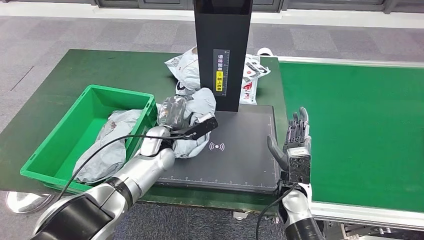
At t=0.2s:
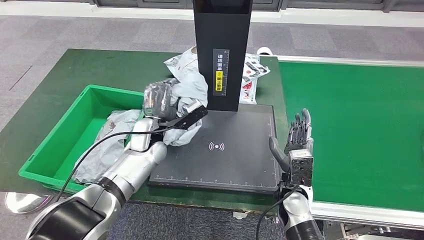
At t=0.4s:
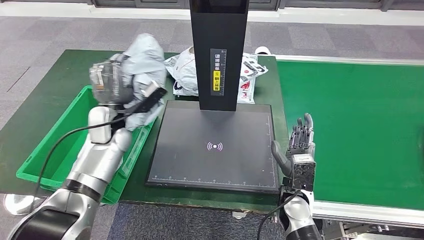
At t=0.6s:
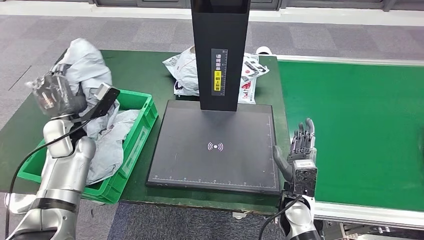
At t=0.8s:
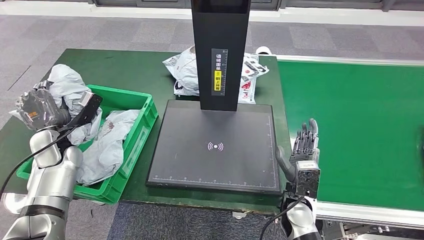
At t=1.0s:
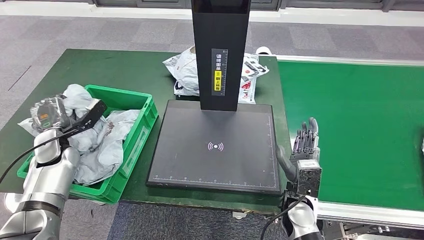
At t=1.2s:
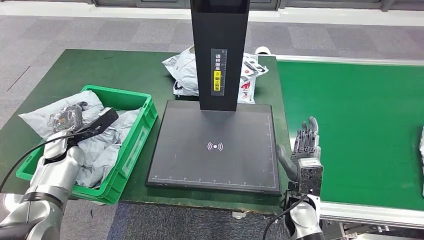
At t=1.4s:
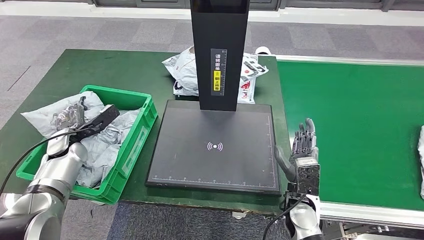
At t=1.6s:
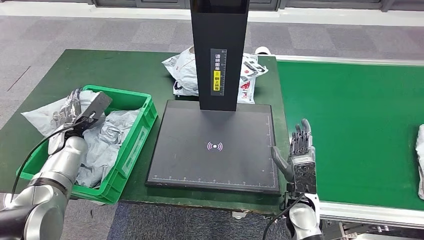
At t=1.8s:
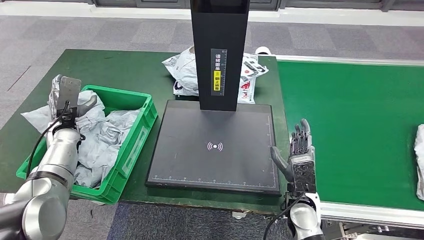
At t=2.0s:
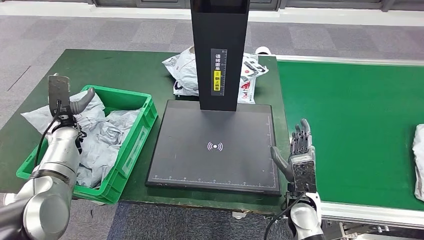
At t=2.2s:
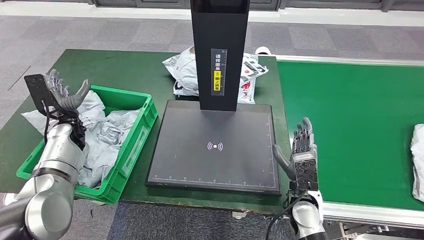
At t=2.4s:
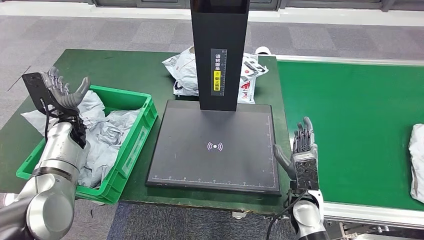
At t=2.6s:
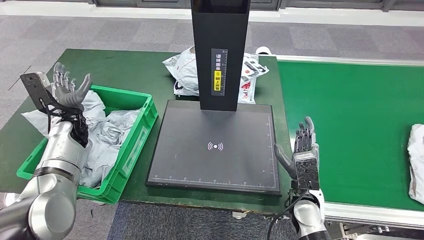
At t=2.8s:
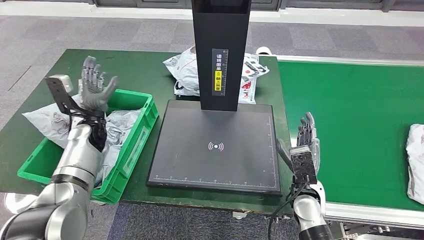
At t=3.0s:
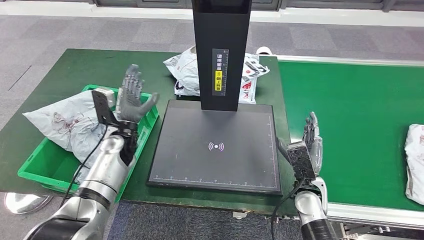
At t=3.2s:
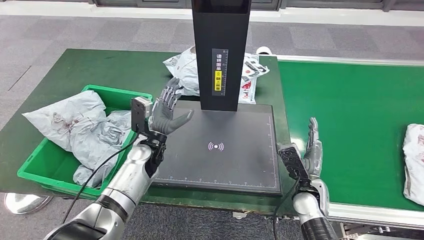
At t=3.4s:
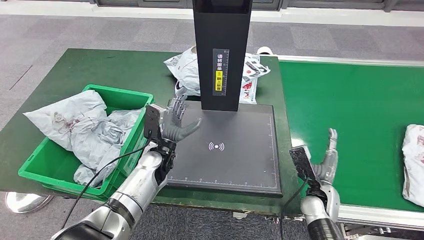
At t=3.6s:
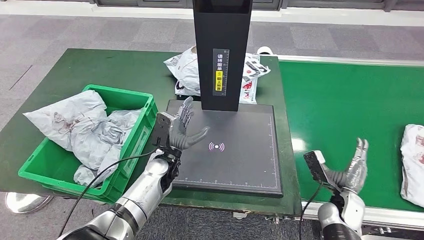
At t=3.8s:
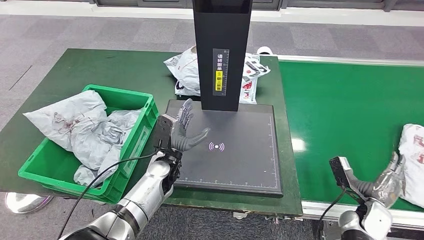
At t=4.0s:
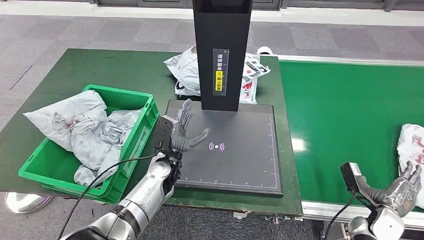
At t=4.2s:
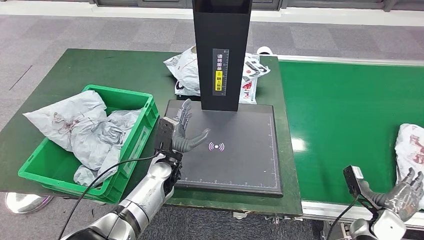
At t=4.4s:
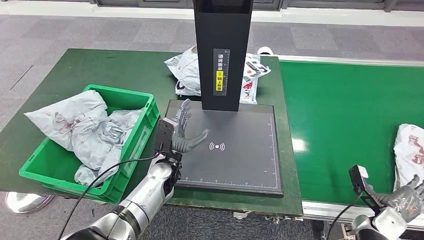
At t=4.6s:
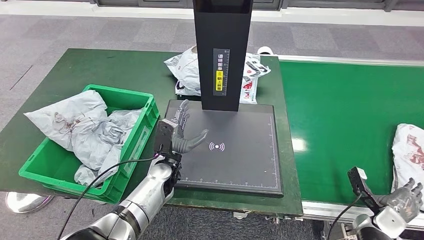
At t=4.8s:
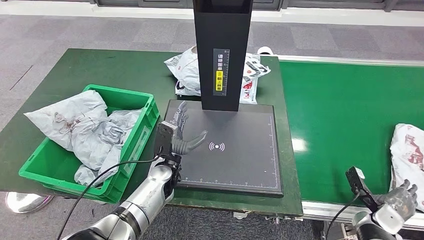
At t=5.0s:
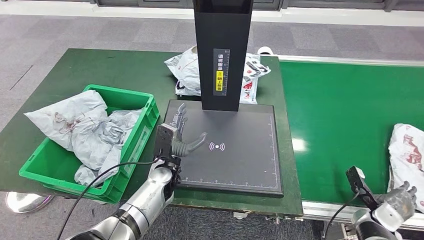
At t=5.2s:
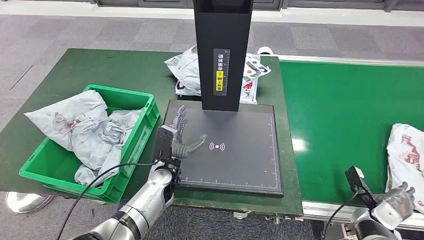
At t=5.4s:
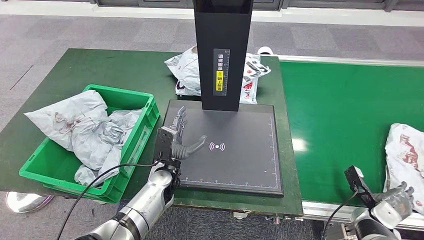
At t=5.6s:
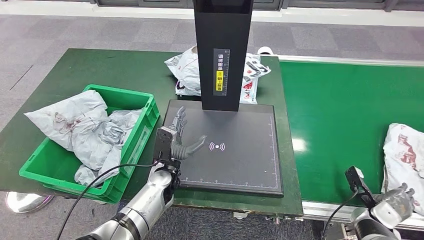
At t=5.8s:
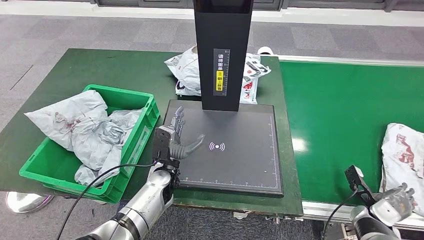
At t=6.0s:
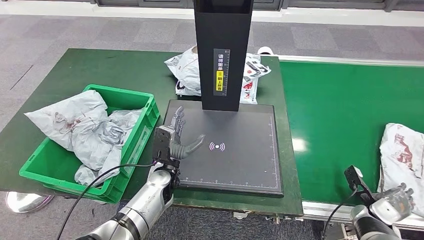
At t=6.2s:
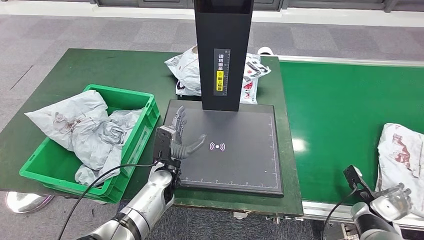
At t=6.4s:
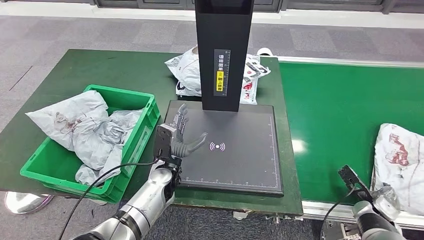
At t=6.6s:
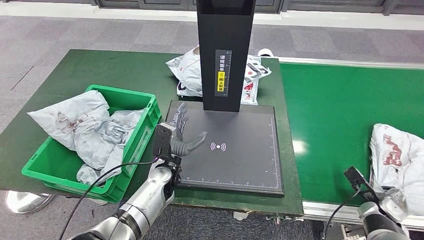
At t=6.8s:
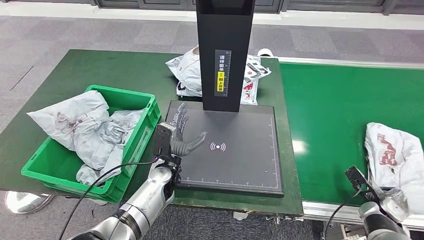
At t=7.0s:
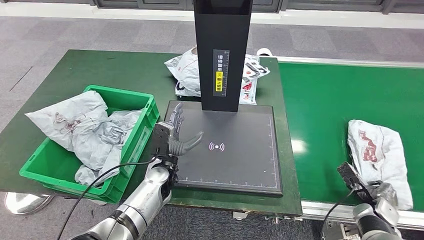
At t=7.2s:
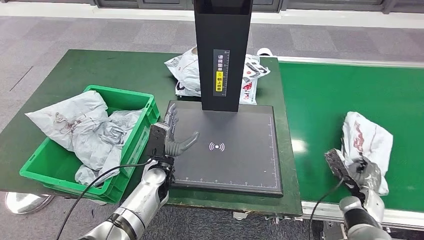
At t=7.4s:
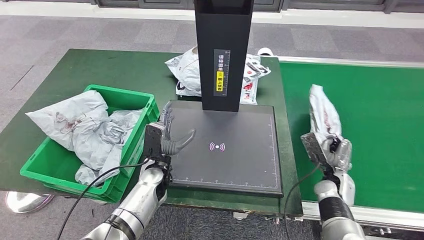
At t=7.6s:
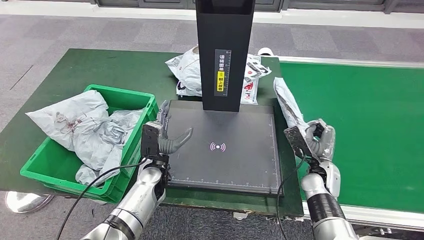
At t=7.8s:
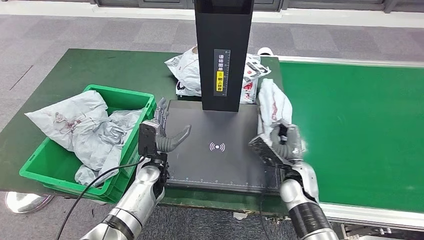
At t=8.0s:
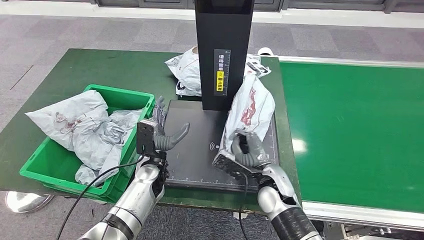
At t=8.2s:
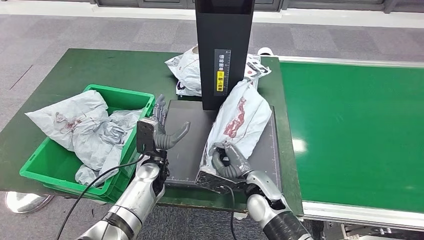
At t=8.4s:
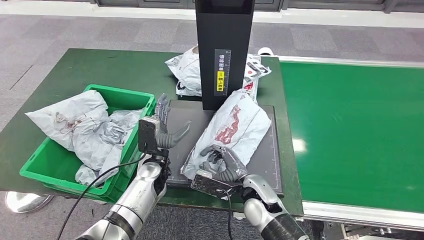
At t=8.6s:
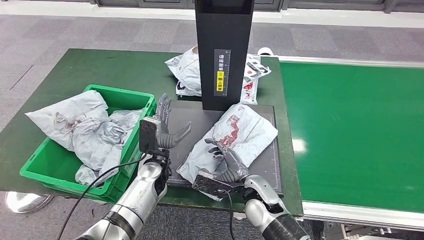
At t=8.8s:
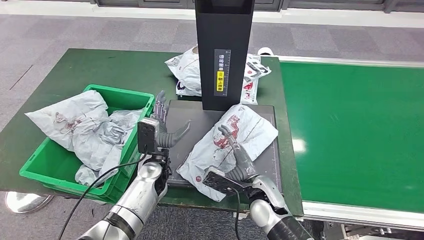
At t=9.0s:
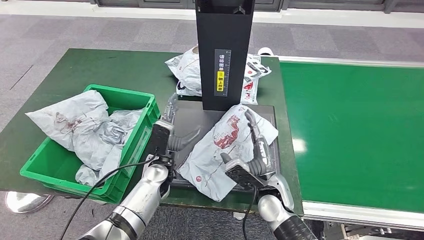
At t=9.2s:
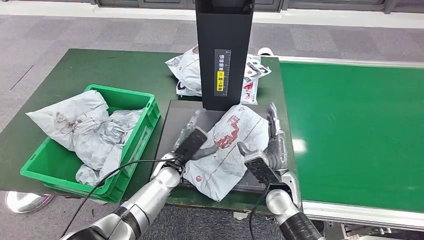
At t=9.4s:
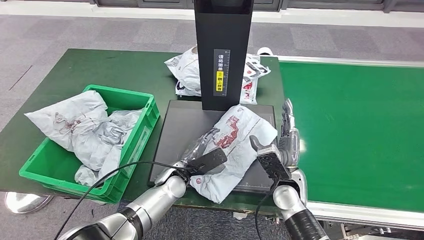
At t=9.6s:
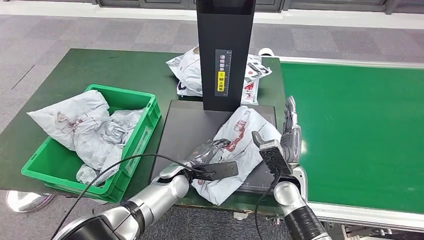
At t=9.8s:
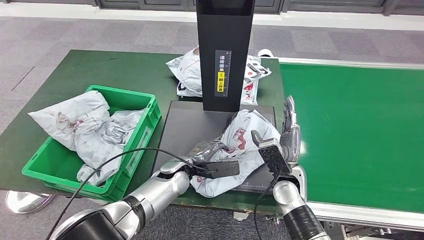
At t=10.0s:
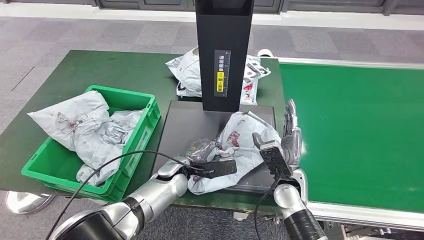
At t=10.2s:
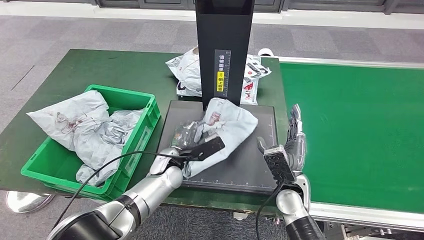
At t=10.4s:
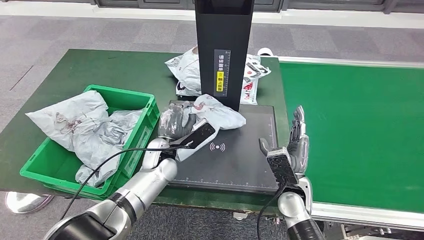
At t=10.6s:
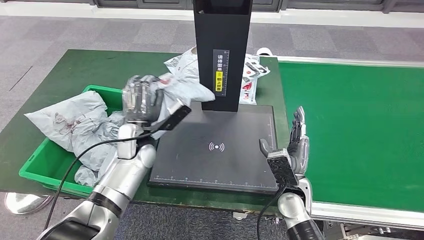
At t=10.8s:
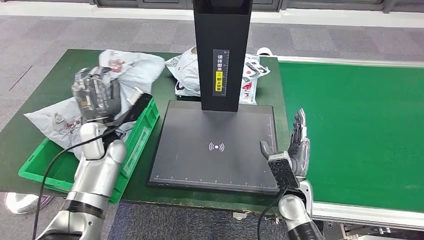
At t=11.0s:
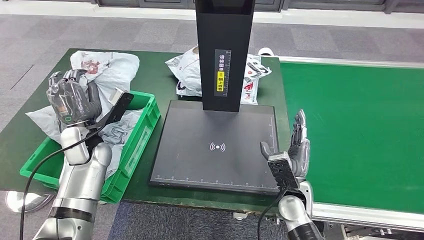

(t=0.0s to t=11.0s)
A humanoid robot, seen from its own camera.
Step, t=0.4s - t=3.0s: Place the parcel into the delivery box.
Step, t=3.2s - t=7.2s: Pick up the parcel from the conveyor belt.
Step, t=7.6s - t=9.0s: Place the parcel onto the inbound machine.
Step, t=9.4s - t=10.2s: Pick up the parcel from the inbound machine.
t=4.8s - t=6.2s: The hands stay close to where they were, moving slightly.
t=7.8s - t=9.4s: The left hand moves to the right, some 5 cm. Meanwhile the right hand goes to the left and returns, approximately 10 cm each way.

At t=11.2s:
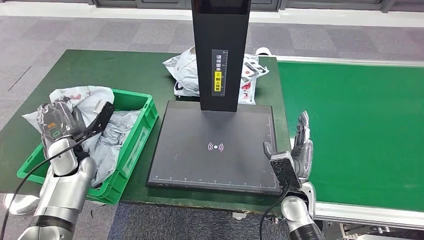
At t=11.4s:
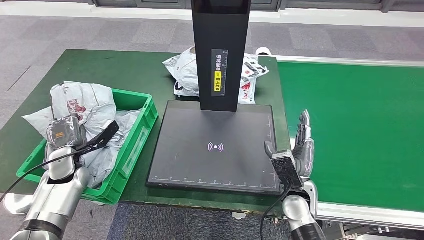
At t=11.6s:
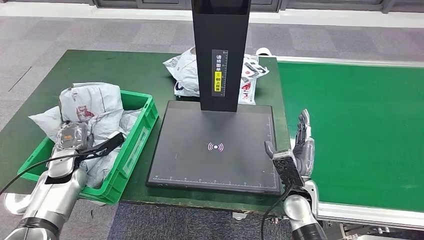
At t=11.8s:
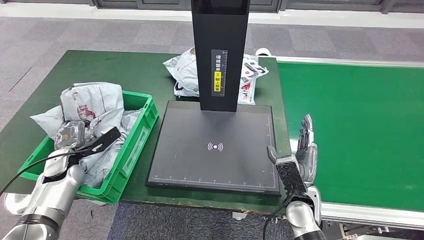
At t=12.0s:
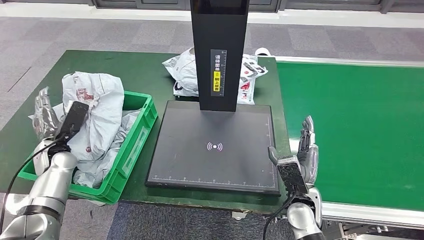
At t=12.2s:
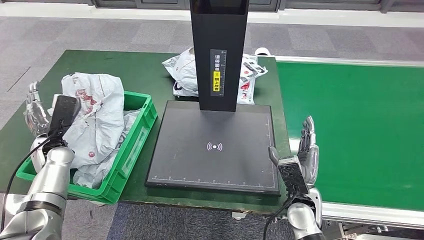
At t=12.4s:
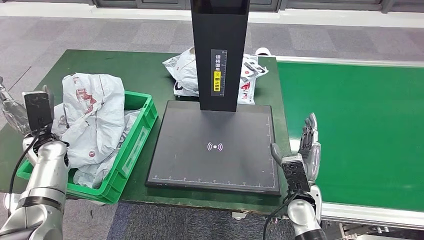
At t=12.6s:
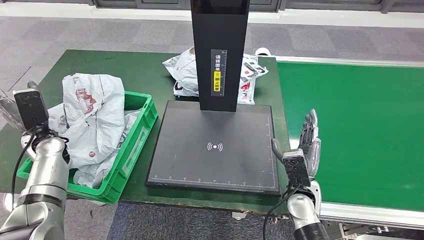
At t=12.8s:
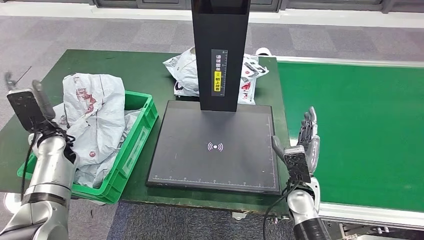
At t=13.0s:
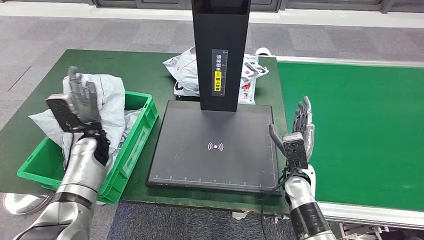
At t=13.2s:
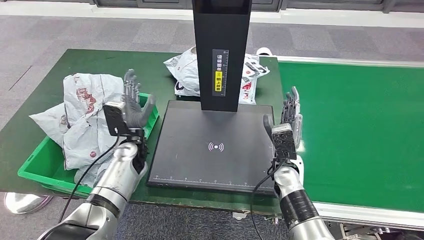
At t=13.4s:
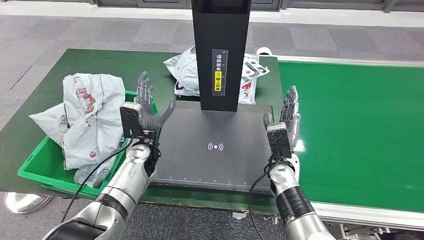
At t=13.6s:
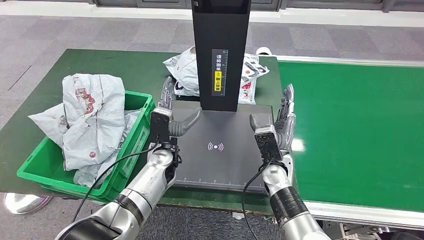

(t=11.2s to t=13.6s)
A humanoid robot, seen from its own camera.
Step, t=11.2s - t=13.6s: Place the parcel into the delivery box.
t=11.2s - t=12.4s: The left hand is displaced to the left by roughly 5 cm.
